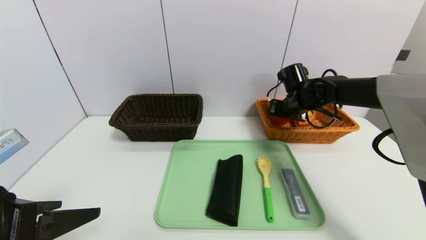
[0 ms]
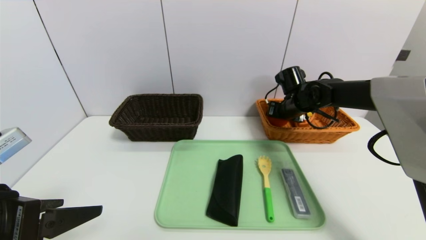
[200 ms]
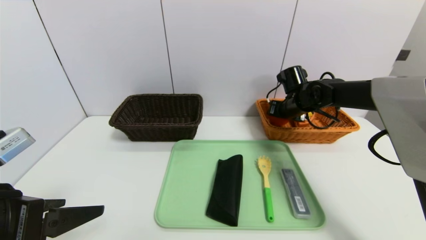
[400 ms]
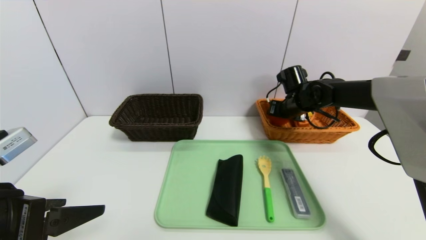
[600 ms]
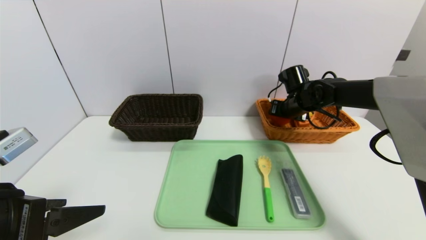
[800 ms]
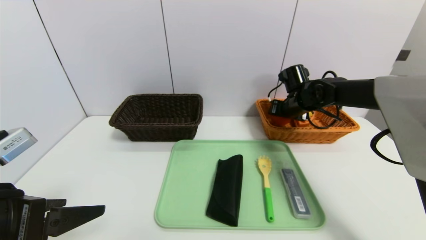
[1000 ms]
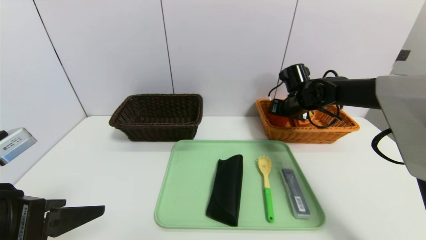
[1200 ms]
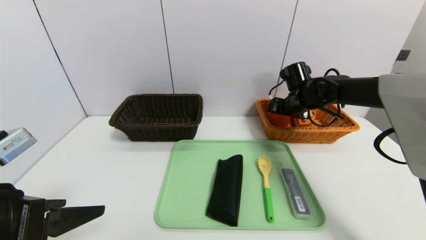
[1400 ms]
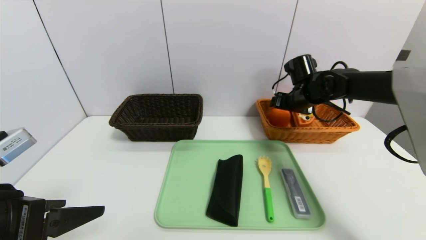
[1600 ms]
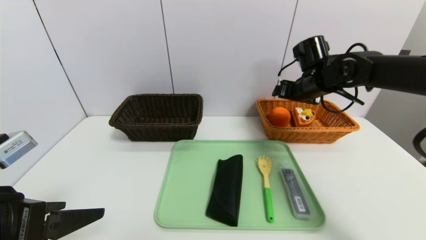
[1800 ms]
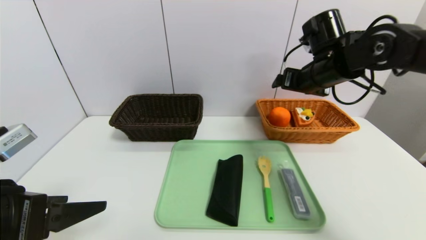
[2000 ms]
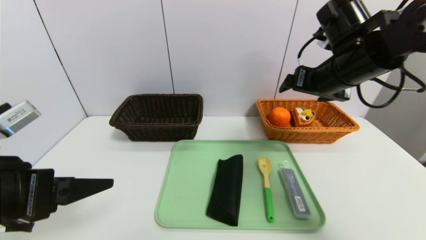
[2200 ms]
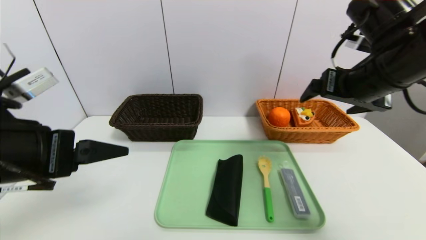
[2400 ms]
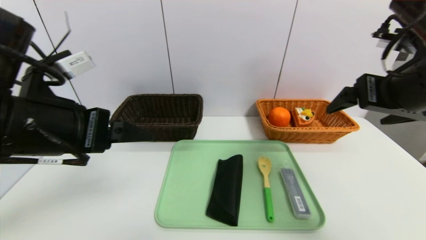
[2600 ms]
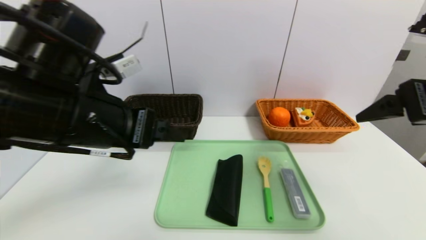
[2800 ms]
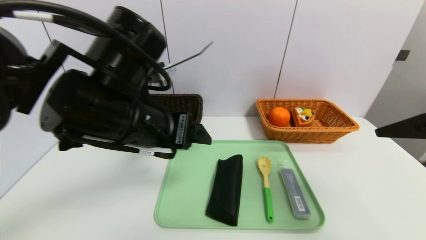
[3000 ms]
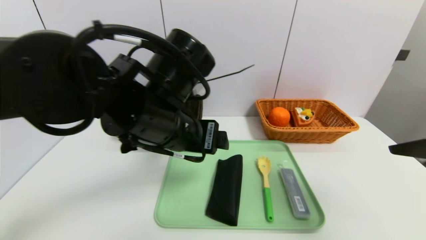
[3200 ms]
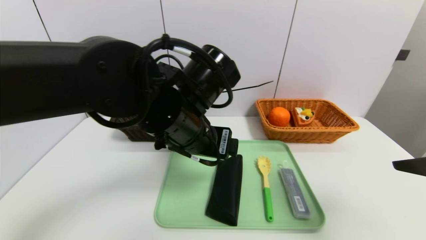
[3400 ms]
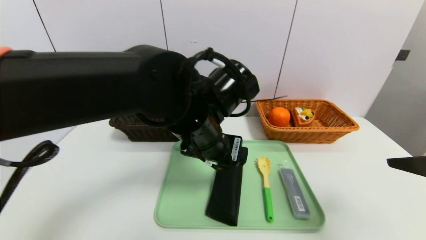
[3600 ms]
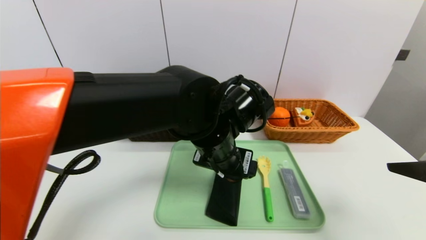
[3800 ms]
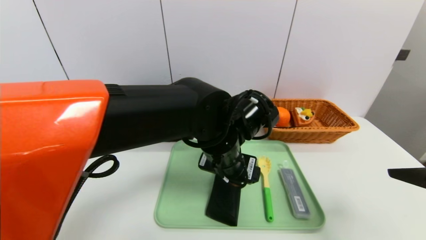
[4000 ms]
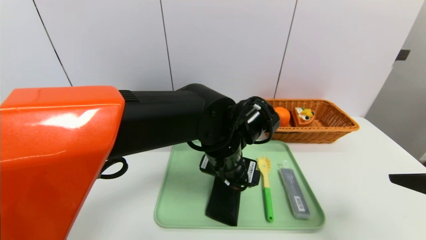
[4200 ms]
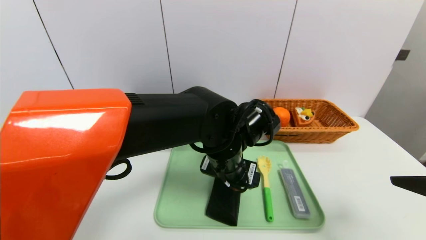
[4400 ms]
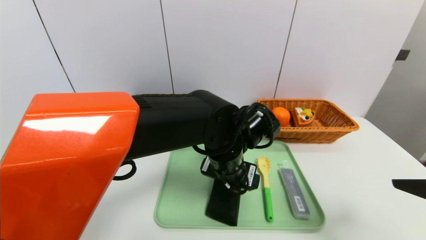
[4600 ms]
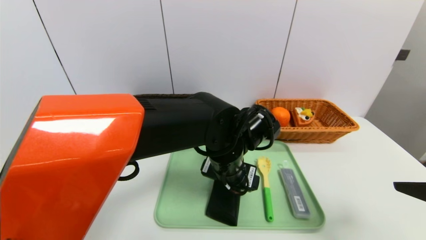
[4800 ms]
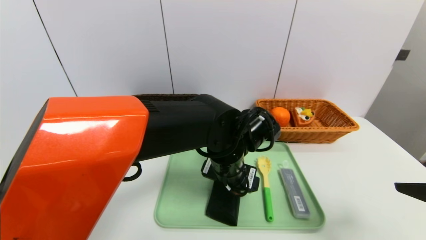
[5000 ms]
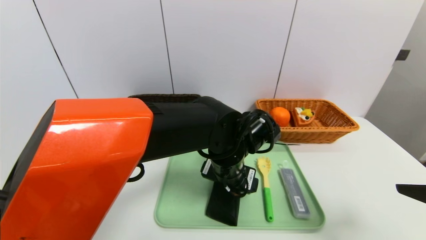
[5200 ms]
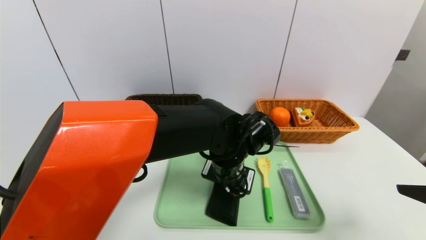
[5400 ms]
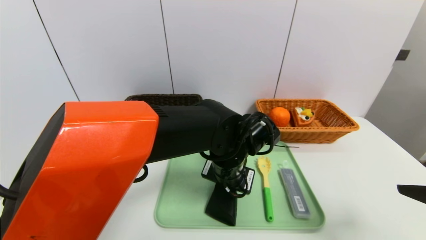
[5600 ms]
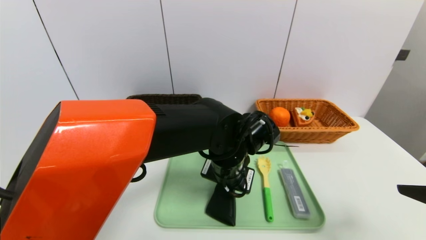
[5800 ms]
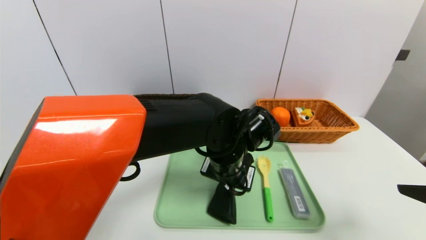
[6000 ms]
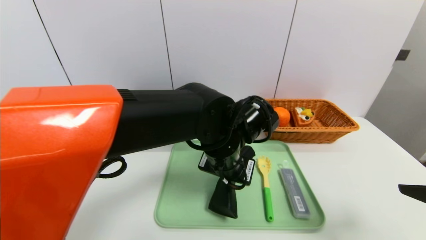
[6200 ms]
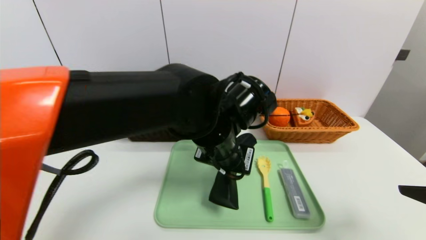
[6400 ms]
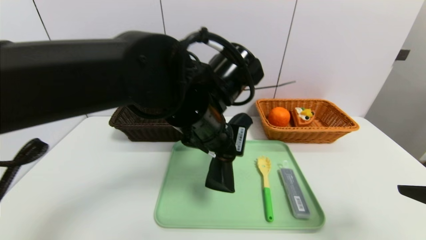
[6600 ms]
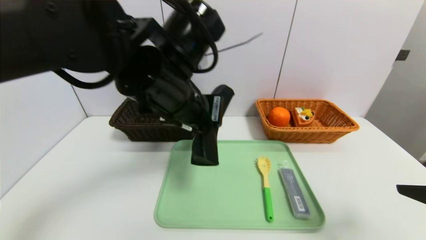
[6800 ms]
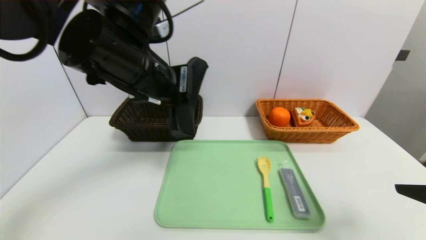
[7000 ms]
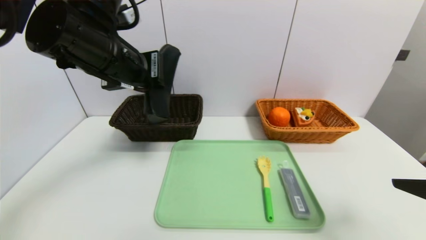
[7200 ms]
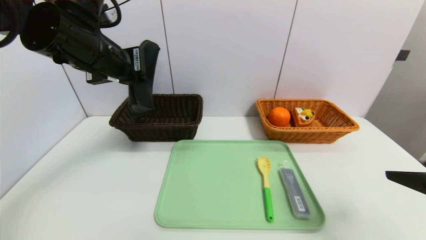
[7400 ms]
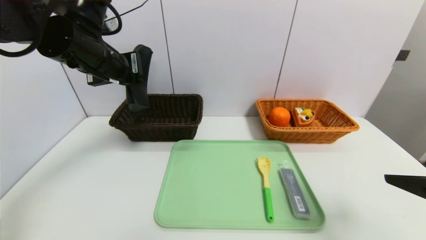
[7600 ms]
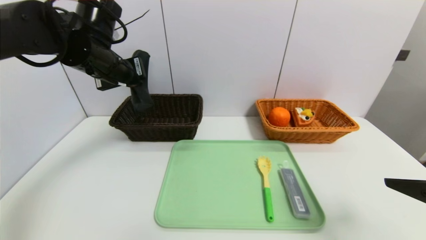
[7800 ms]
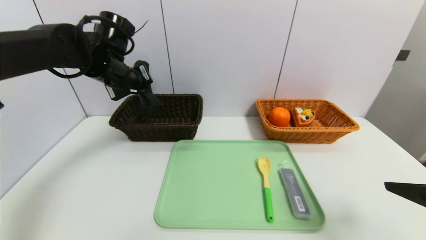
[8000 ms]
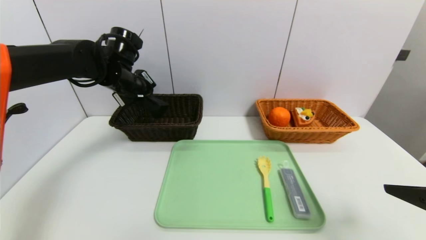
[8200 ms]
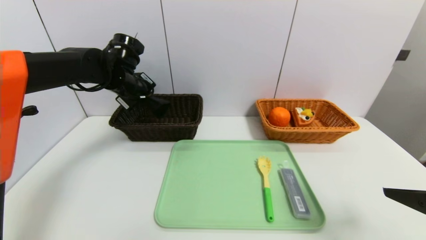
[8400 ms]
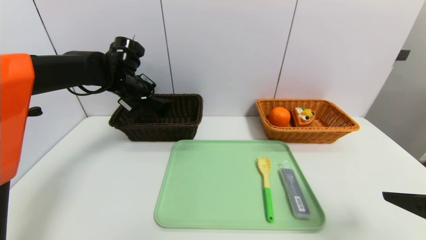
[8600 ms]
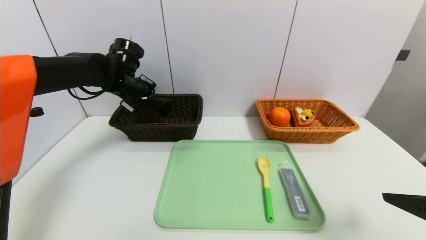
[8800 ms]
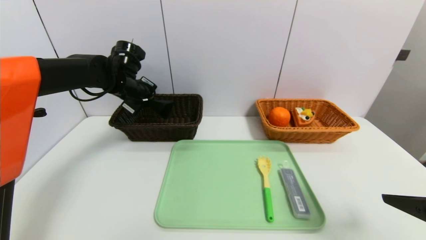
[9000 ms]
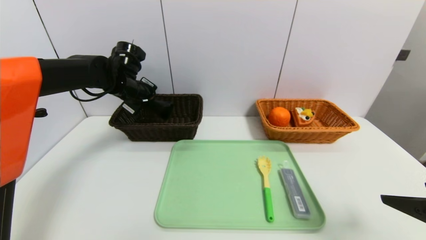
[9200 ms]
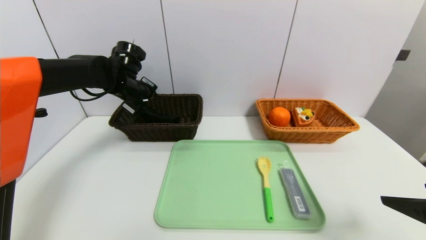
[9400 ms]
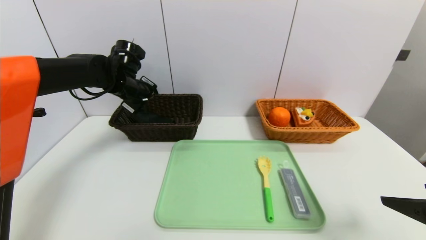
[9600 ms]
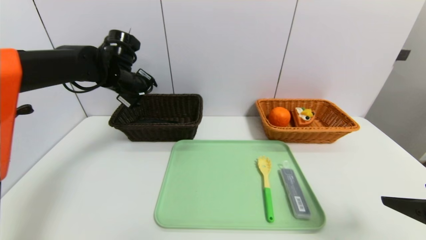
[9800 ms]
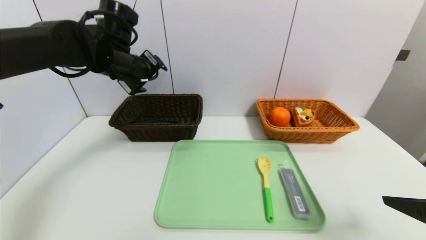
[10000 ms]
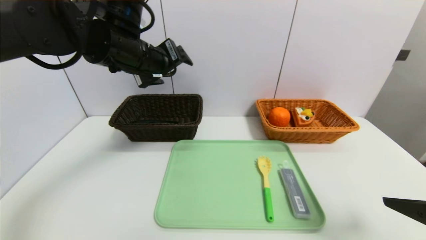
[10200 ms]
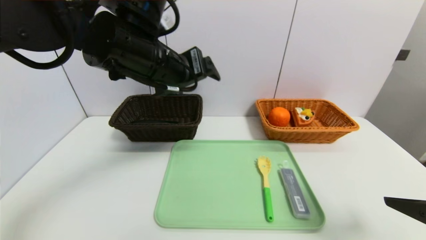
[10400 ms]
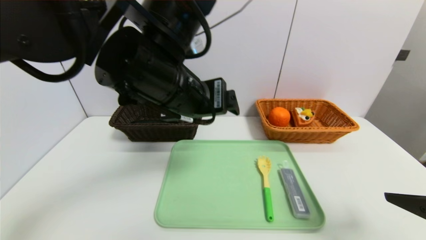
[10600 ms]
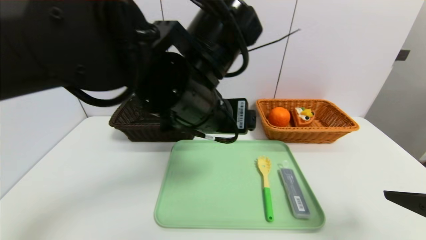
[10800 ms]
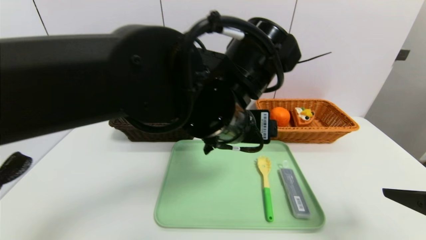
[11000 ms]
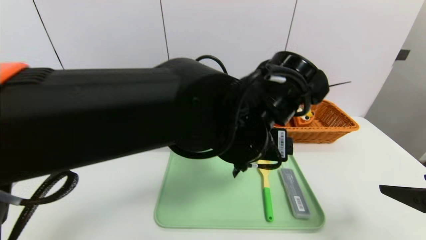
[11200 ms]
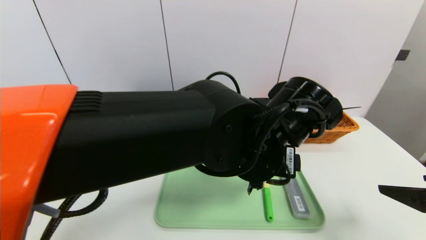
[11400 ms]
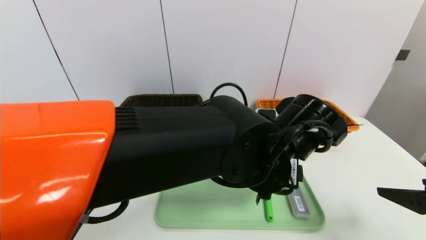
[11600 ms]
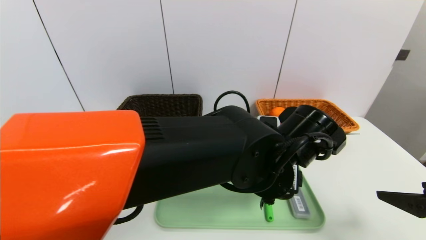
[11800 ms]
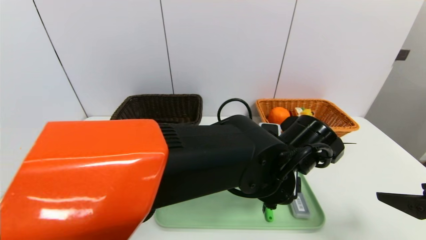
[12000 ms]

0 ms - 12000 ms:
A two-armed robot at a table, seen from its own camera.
Task of the whole recording: place the food in the right basket with the right gripper, and place the non food items in the left basket with the left gripper.
Step, 1800 ms - 10000 ms: Grasp the glasses case and put it in the left basket.
0 ms - 1600 ms: The right gripper opens up.
1600 ms - 3000 ms: The right gripper moves backward and upward, roughly 35 cm; the left gripper heads to the right and forward, covering some 20 cm.
3000 ms - 4400 ms: The left gripper goes some 15 cm to the right and downward. The right gripper moves downward, some 5 cm.
4400 ms - 6000 ms: The left gripper closes.
6000 ms - 7600 ms: The left gripper shifts approximately 30 cm to the left and upward.
7600 ms - 9000 ms: The left gripper moves forward and downward, approximately 15 cm.
9000 ms - 10400 ms: The left gripper shifts roughly 25 cm backward, to the right and upward, and opens.
10400 ms - 12000 ms: The left gripper travels to the right and downward by about 25 cm.

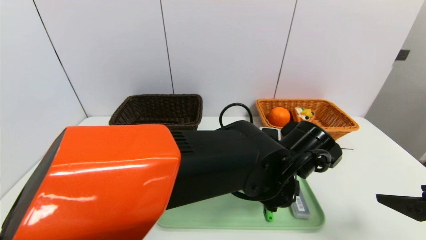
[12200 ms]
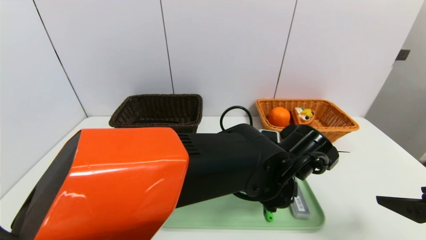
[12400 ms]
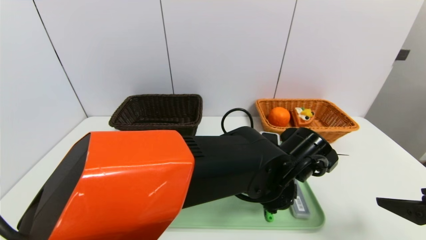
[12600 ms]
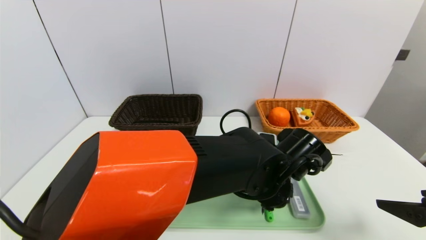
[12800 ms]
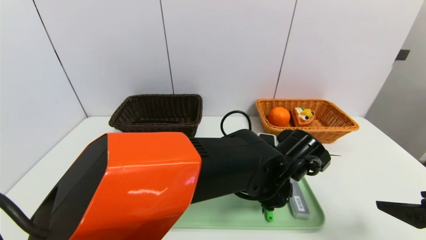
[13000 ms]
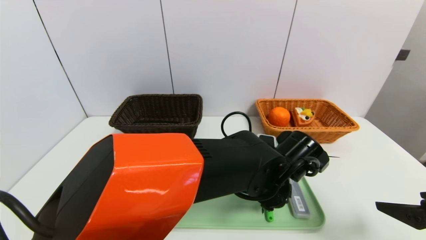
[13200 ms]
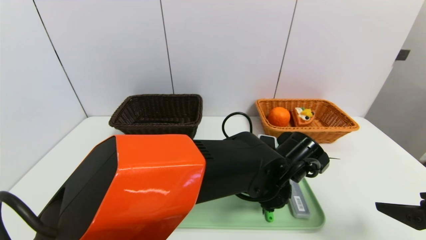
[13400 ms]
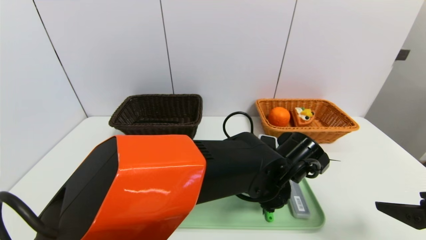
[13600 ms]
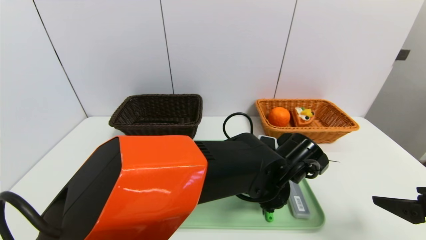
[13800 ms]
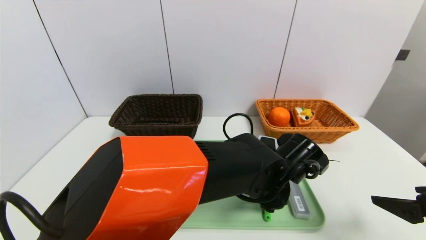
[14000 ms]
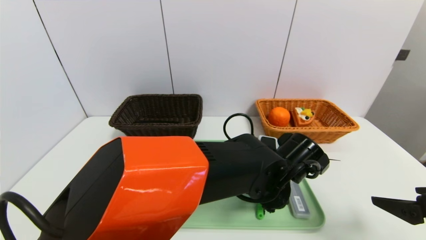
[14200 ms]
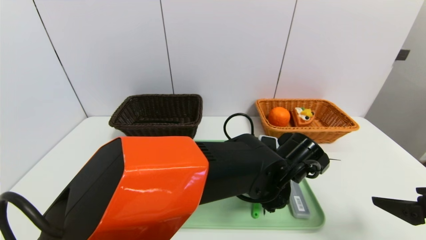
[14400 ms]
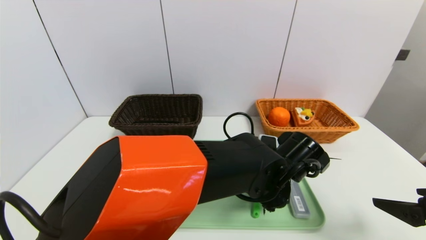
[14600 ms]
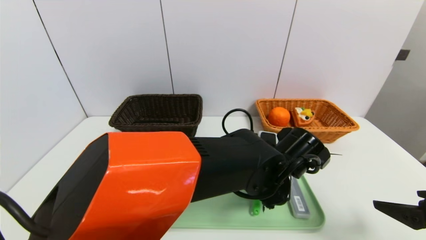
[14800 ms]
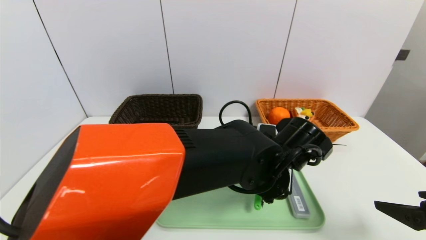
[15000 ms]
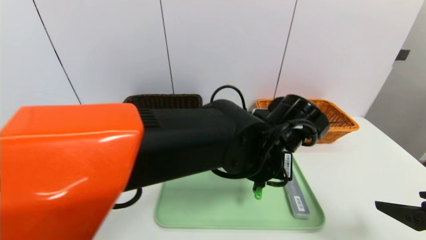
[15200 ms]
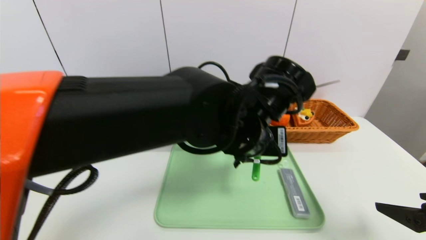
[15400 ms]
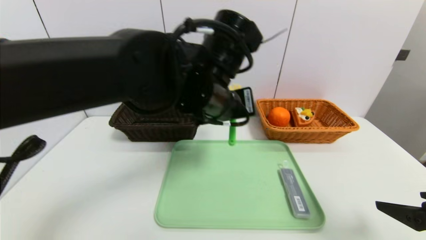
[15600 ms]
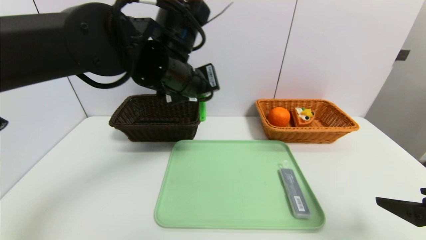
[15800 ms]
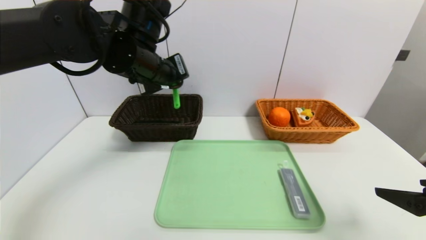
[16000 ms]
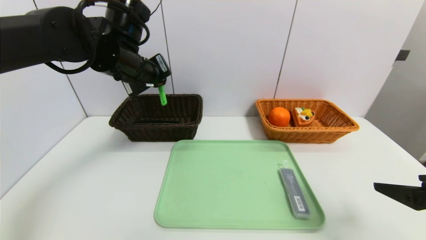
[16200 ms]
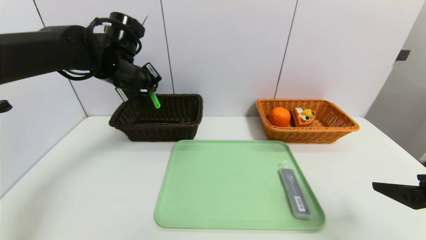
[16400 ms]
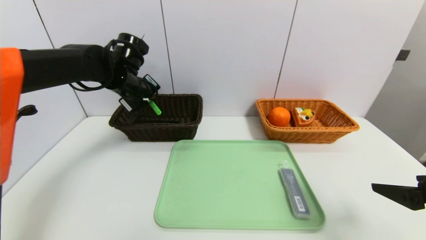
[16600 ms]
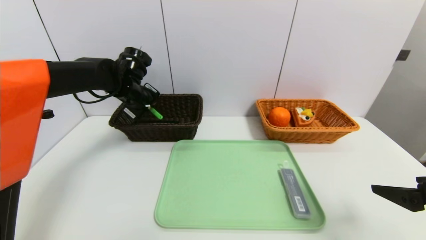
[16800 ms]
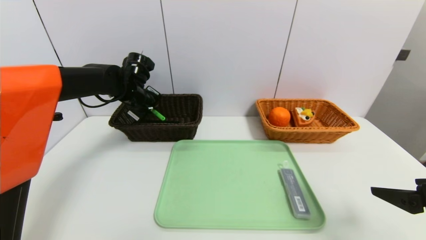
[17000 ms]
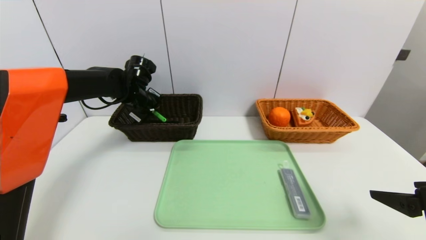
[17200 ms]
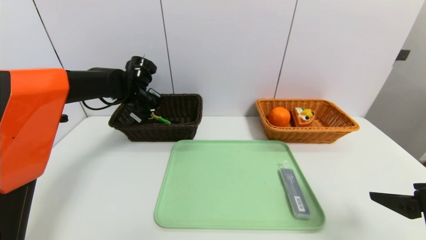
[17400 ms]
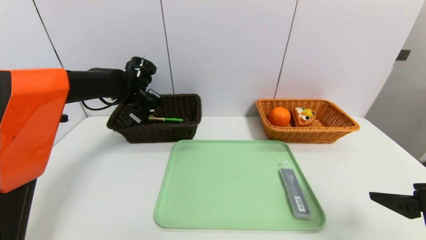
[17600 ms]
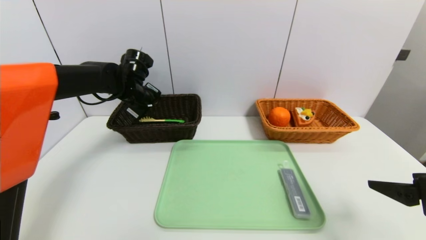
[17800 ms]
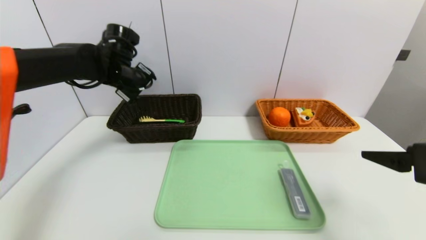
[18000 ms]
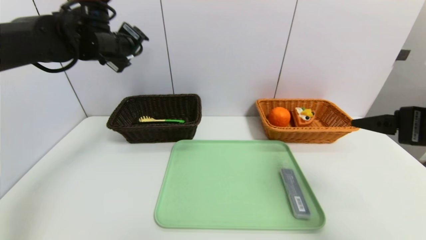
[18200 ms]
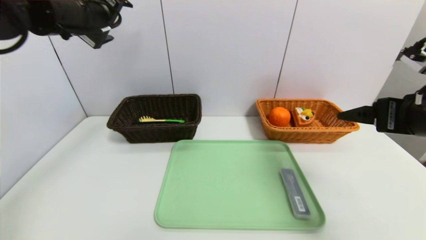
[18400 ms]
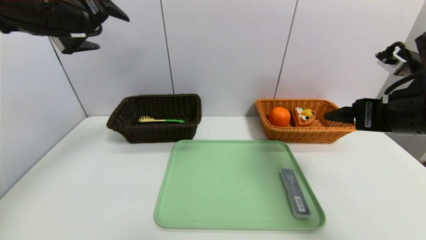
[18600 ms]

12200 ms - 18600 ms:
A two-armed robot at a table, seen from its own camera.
Task of the whole recording: place the food in the right basket with the right gripper, and place the non food items in the left basket with the left gripper.
Step, 12200 ms - 17800 ms: Grasp the back scratcher and put it in the left basket.
12200 ms - 13800 ms: The grippers make only small movements.
13800 ms - 15400 ms: The left gripper goes about 15 cm upward and to the left, and closes its fingers.
15400 ms - 17000 ms: The left gripper moves to the left and forward, about 30 cm.
17000 ms - 18600 ms: The right gripper travels forward and upward by roughly 10 cm. Meanwhile the left gripper moves upward and backward, approximately 25 cm, and opens up.
